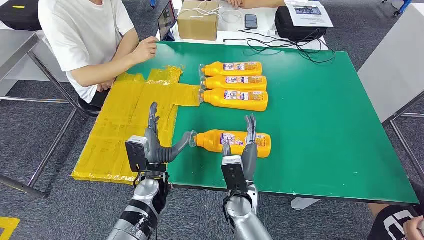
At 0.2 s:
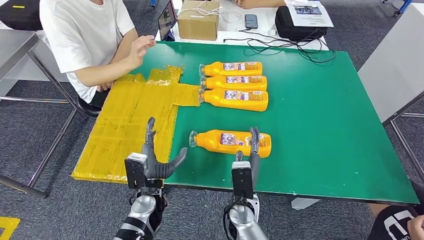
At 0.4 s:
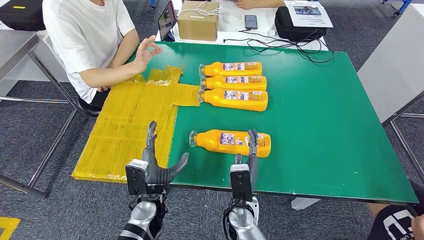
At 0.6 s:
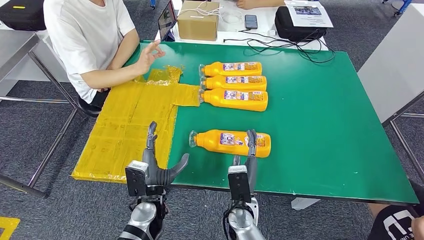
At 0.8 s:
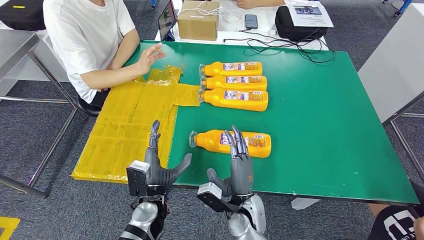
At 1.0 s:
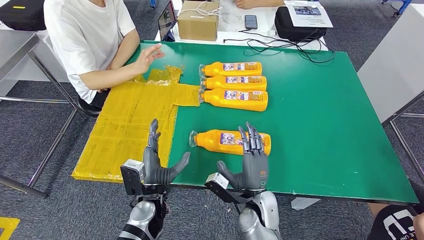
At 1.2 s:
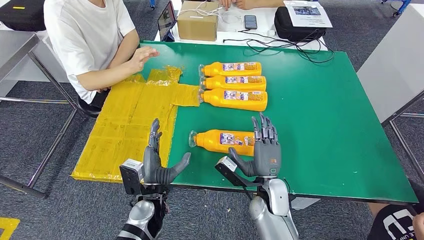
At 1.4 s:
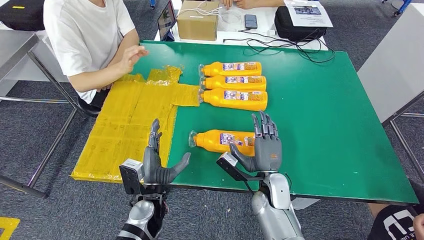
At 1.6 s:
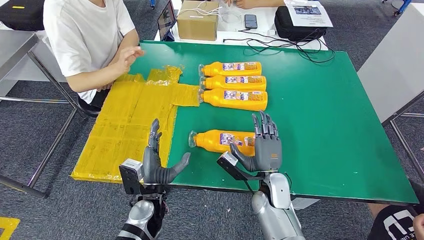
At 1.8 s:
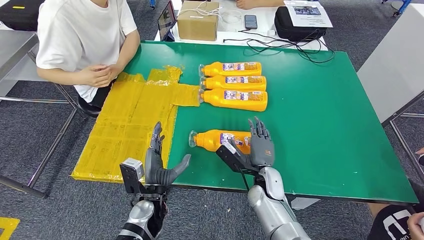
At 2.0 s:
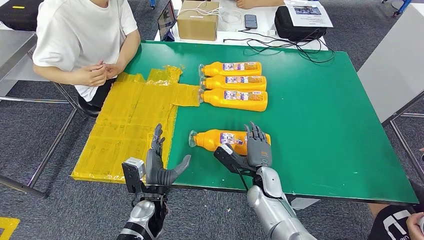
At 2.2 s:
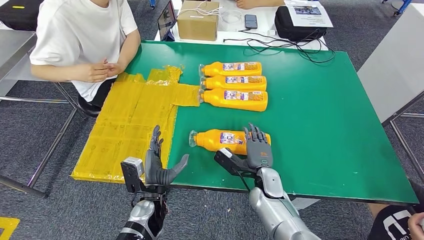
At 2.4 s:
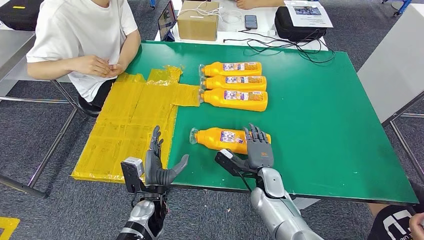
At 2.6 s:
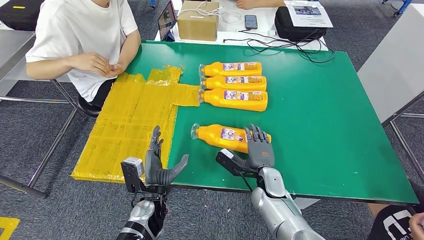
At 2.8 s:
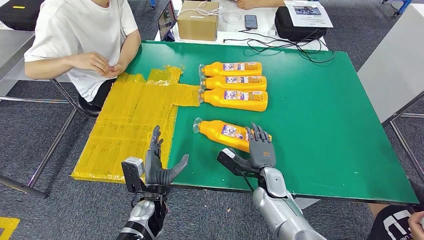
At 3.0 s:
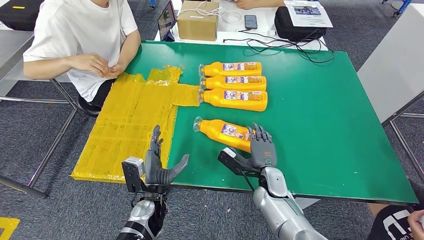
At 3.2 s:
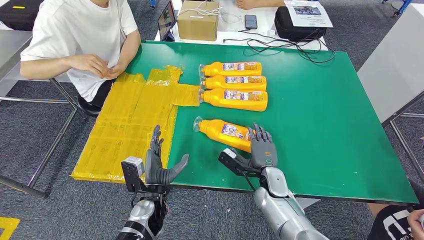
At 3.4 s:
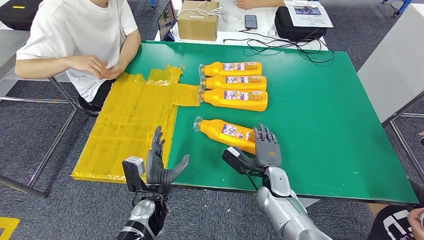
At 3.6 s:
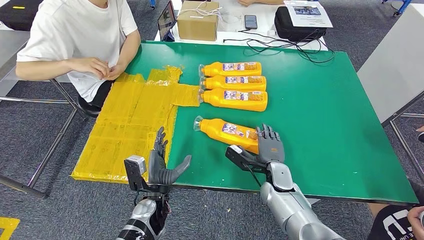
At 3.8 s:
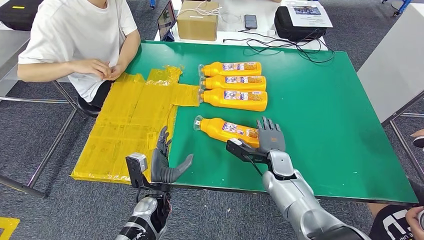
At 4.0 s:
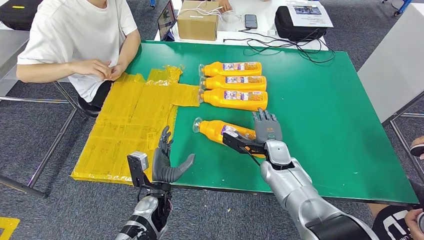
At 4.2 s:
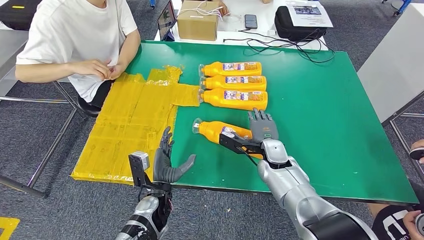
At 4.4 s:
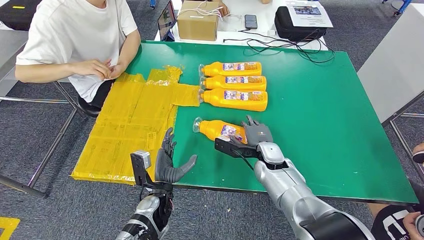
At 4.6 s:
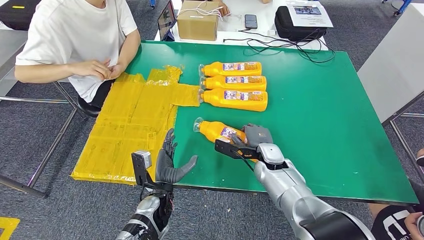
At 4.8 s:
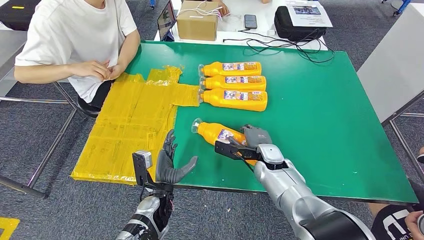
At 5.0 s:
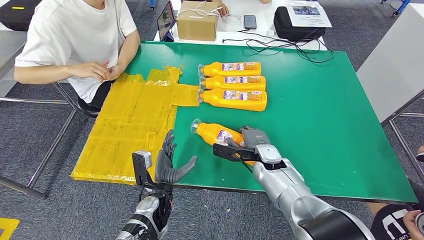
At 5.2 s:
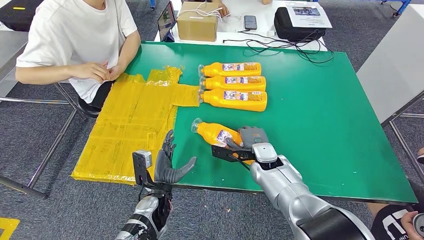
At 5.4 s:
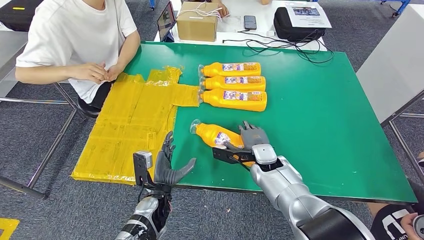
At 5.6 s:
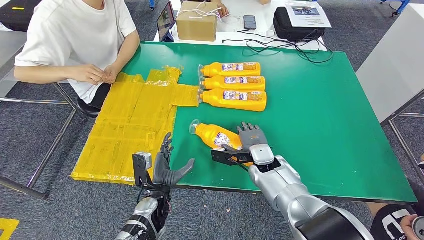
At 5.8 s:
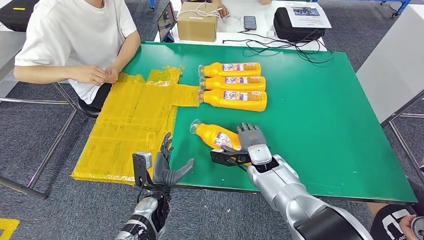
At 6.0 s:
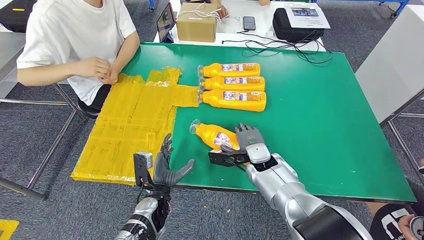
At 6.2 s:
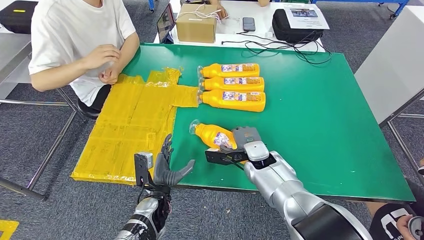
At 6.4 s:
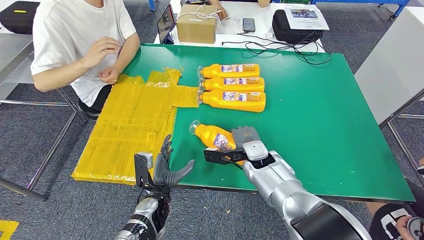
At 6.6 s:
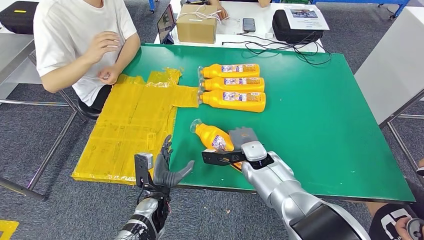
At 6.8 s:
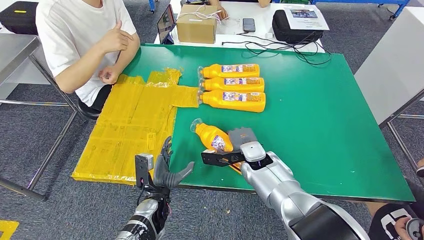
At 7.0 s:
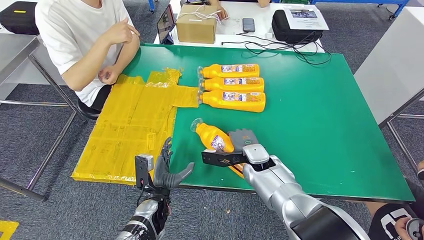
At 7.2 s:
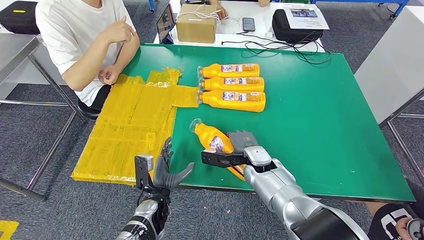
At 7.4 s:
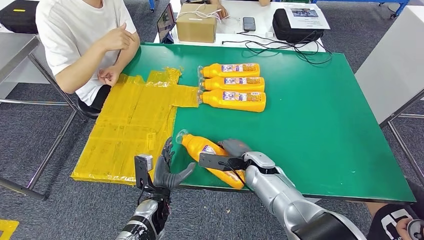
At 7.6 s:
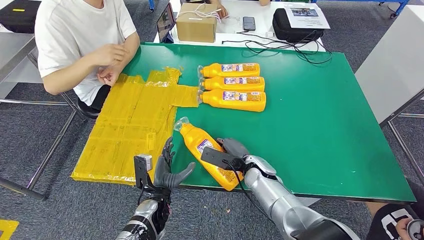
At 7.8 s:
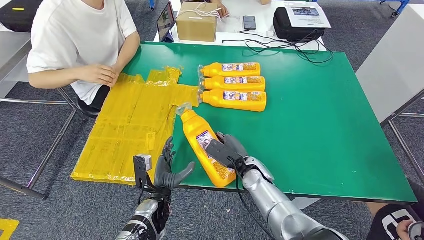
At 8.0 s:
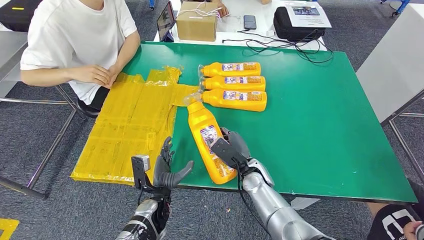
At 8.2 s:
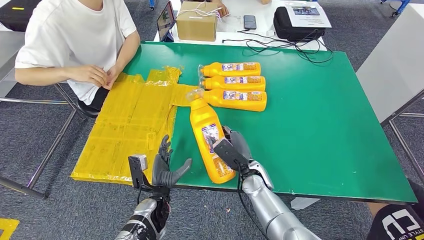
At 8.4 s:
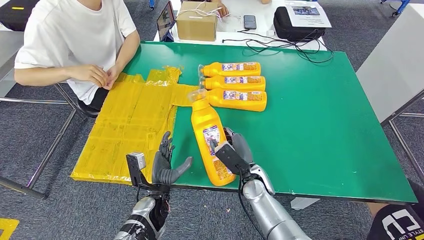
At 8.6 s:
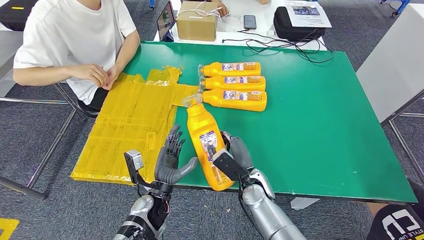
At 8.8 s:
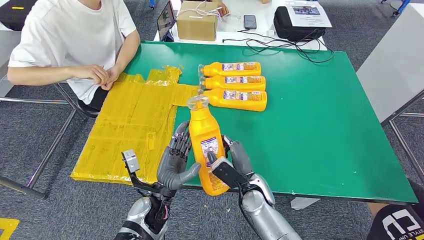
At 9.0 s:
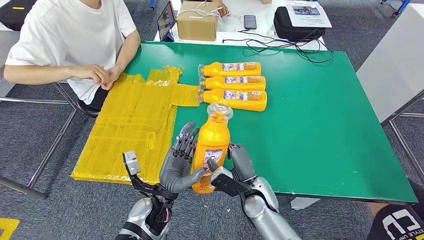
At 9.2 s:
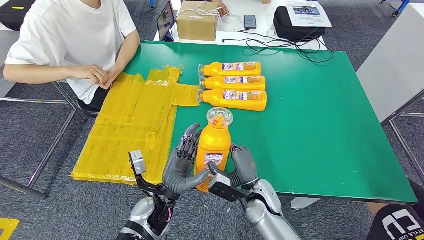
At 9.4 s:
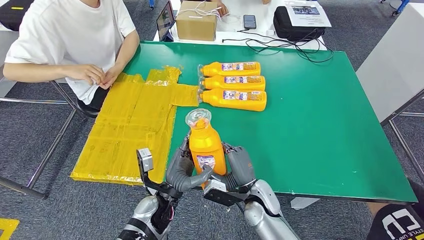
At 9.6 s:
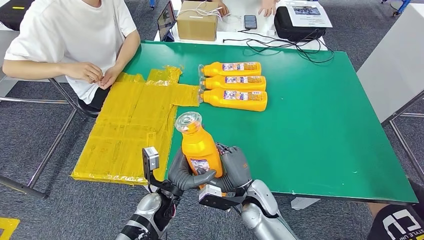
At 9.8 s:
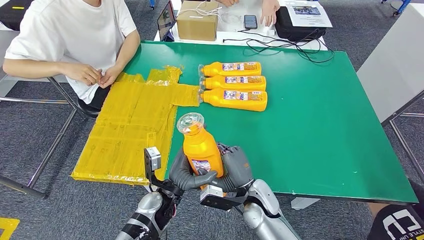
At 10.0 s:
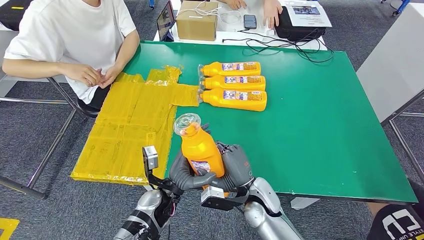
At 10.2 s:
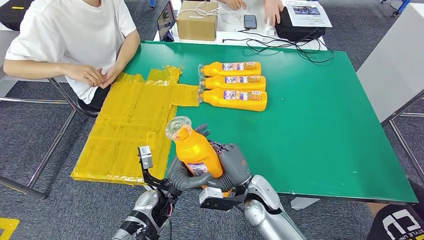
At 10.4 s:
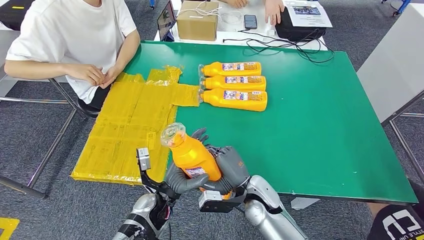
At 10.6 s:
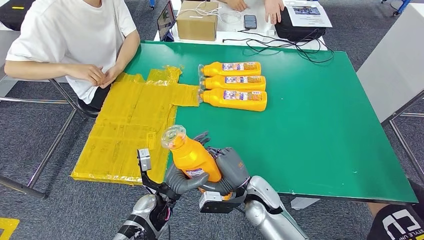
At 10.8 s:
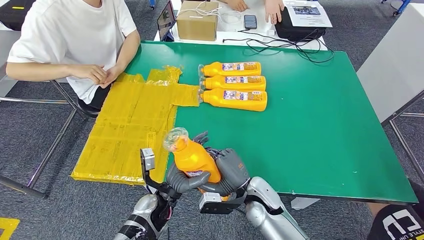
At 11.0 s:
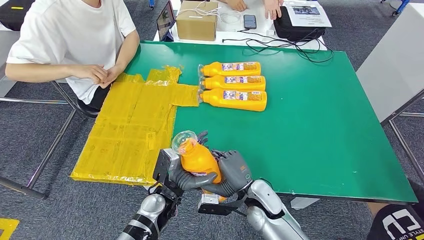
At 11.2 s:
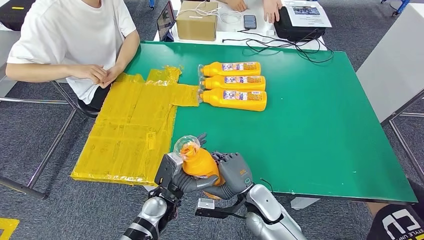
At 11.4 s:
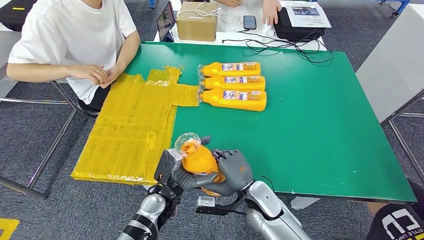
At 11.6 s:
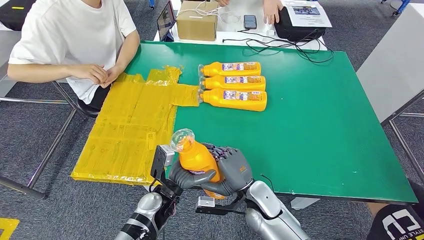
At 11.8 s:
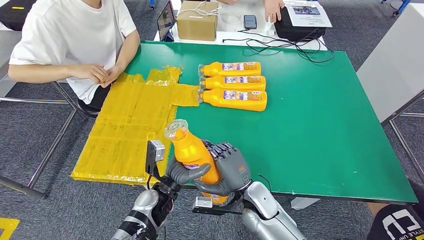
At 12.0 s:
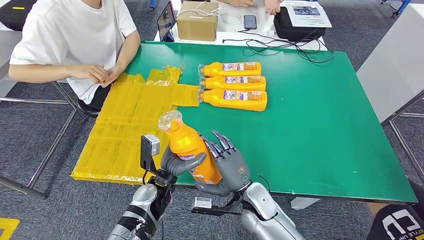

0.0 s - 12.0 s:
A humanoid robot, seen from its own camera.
Step, 0.0 s - 8.8 s: Take the fast-moving consumer goods bottle from the table.
3.0 s - 4.4 s: The right hand is displaced forward by some 5 cm.

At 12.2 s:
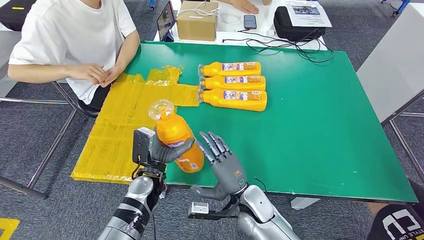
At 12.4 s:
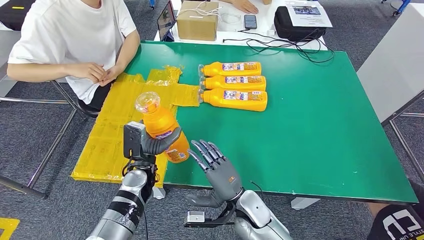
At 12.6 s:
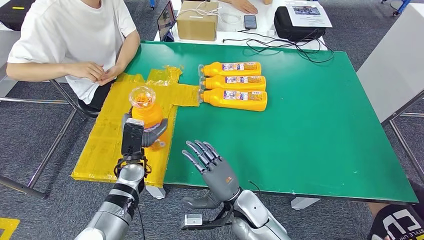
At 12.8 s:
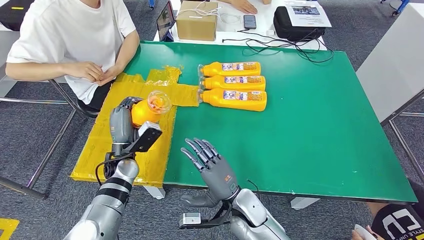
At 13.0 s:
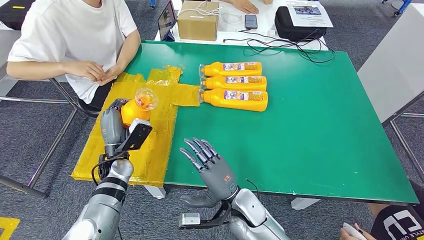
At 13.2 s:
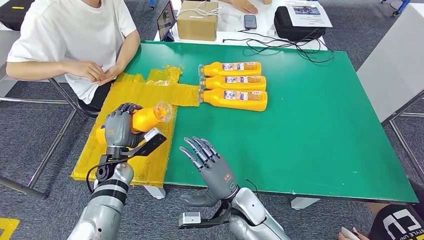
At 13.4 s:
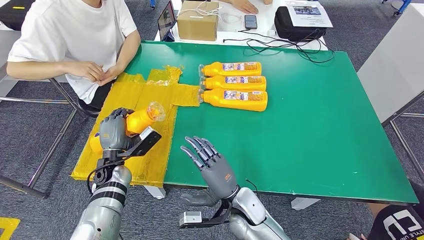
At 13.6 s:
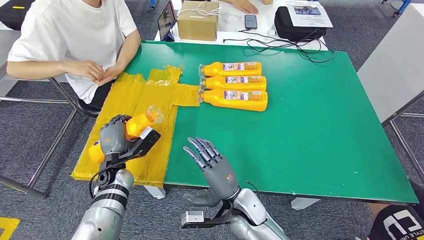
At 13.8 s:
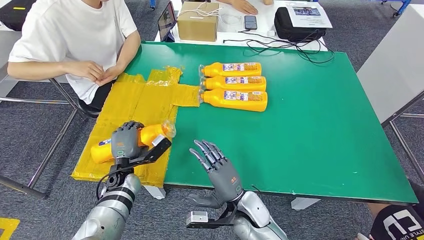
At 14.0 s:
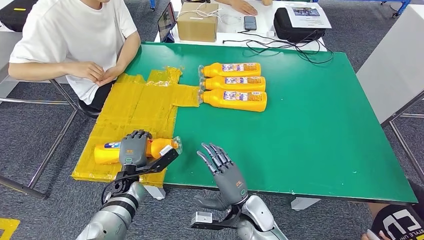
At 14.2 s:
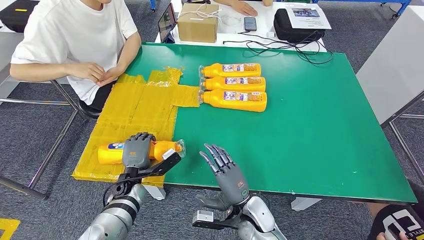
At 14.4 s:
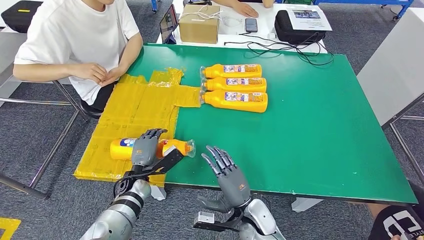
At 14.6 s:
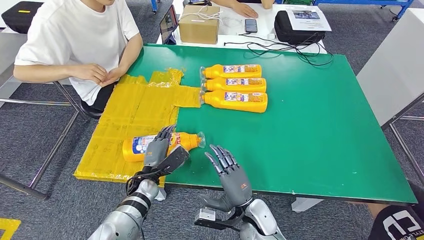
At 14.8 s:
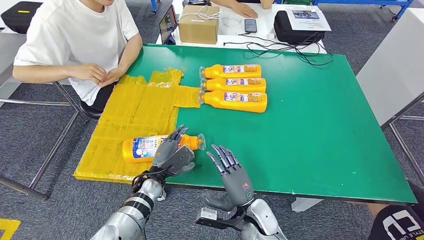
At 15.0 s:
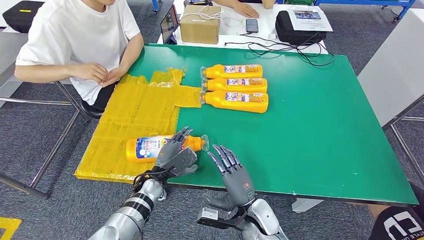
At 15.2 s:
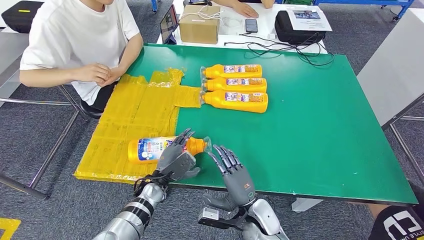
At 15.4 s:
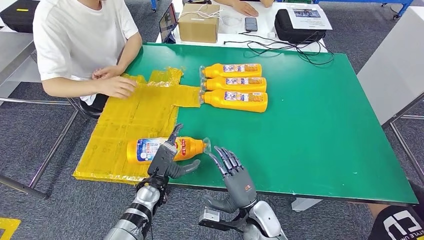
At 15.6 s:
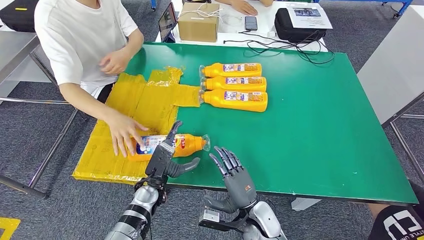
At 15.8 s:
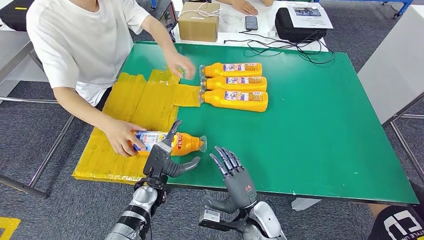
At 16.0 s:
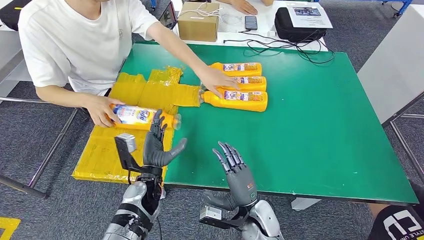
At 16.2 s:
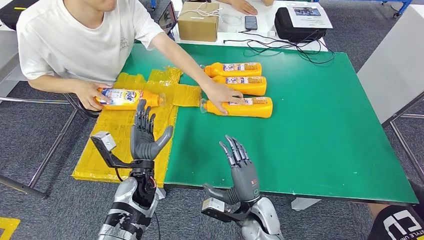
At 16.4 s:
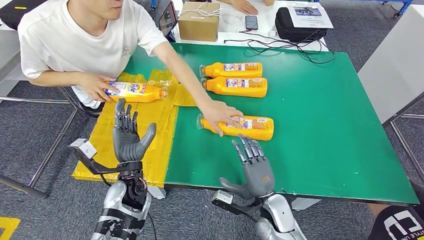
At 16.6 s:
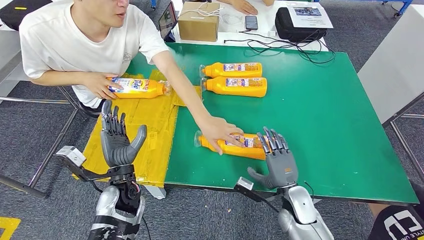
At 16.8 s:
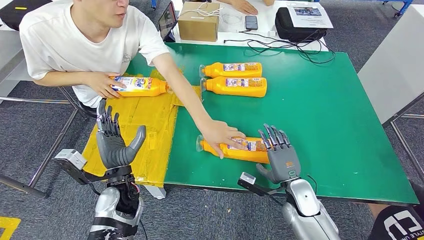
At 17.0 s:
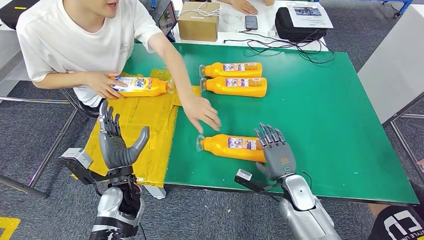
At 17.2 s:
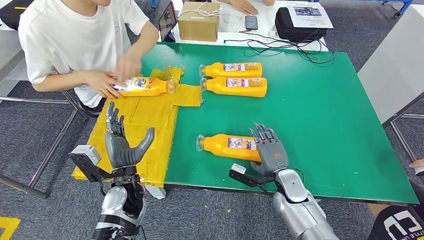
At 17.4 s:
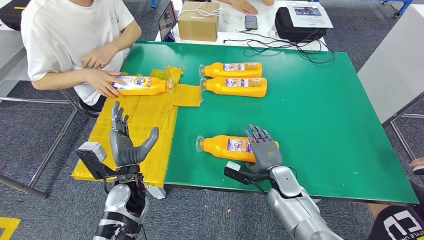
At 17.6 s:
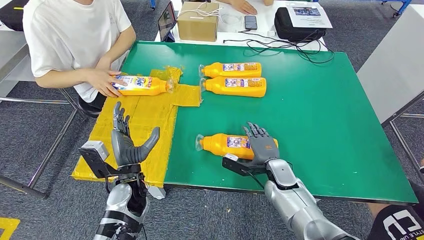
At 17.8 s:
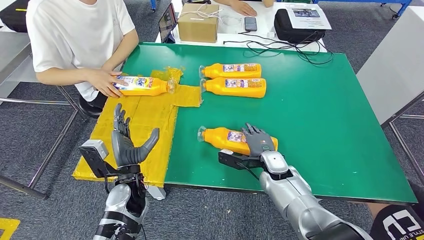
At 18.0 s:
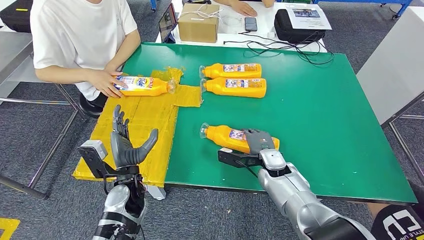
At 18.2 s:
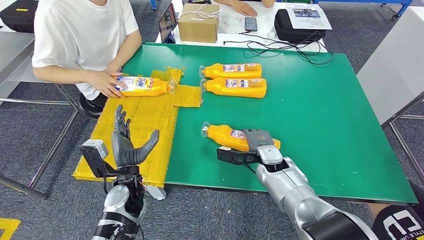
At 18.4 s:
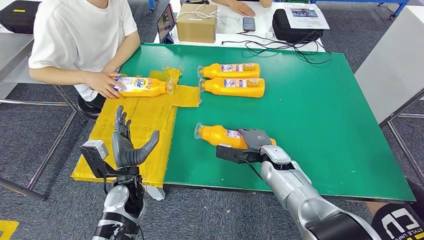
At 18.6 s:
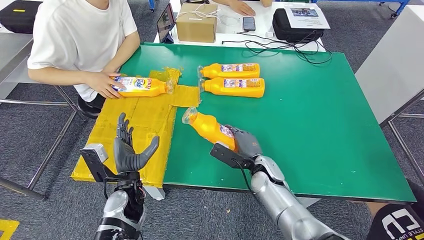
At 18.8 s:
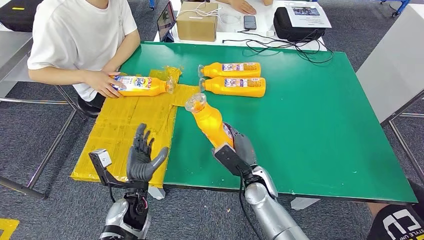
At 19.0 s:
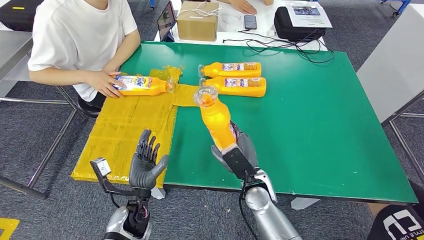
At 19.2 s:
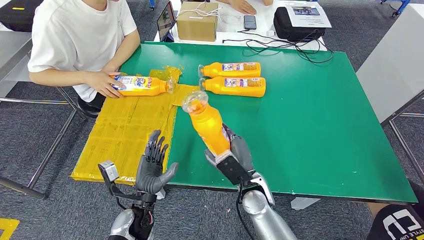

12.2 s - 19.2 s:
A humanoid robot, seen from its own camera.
Step, 12.2 s - 16.0 s: Flip the fast-moving consumer goods bottle to the front side.
12.2 s - 13.6 s: The left hand is displaced to the left by approximately 10 cm.
